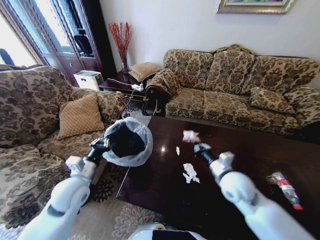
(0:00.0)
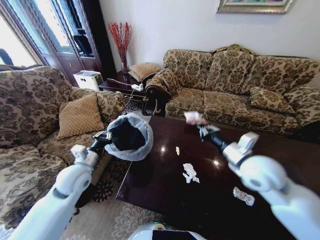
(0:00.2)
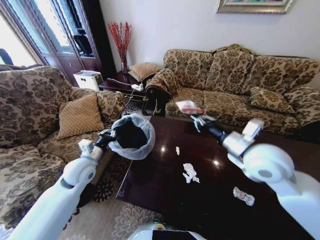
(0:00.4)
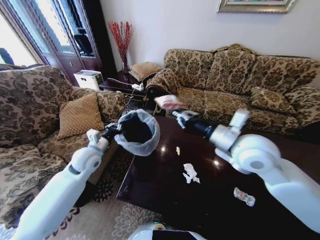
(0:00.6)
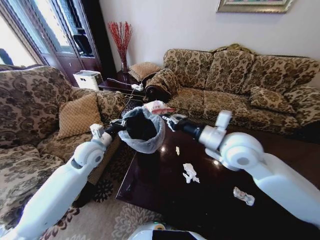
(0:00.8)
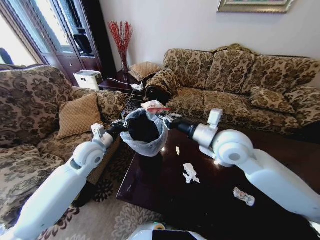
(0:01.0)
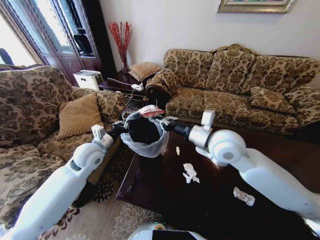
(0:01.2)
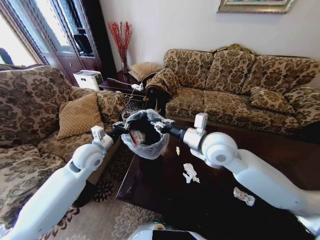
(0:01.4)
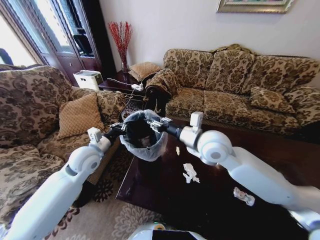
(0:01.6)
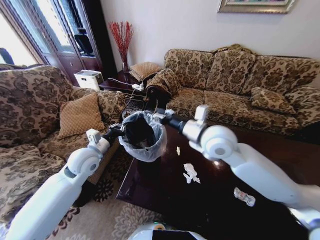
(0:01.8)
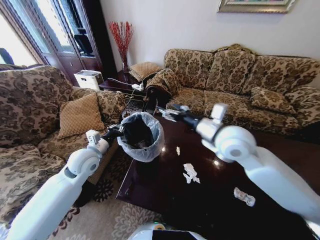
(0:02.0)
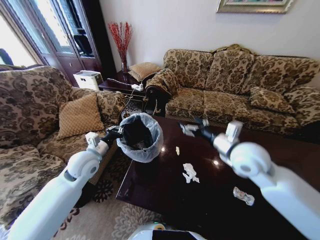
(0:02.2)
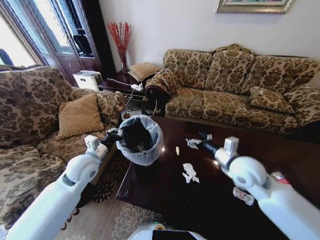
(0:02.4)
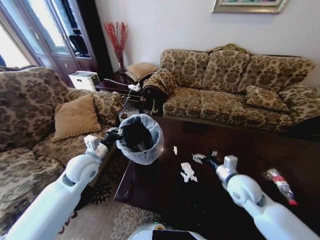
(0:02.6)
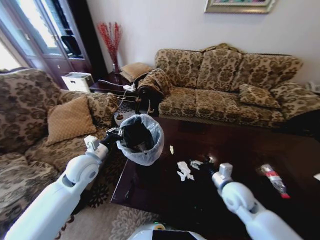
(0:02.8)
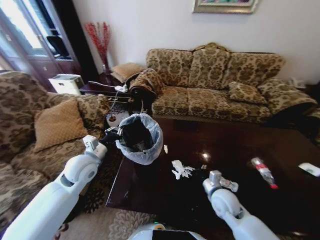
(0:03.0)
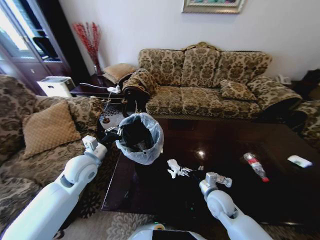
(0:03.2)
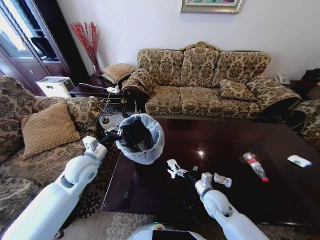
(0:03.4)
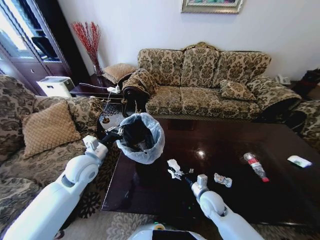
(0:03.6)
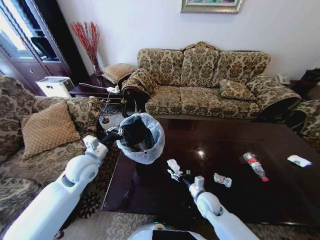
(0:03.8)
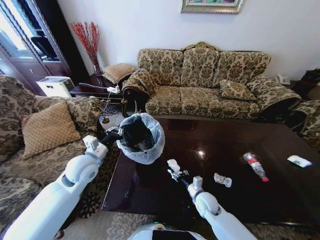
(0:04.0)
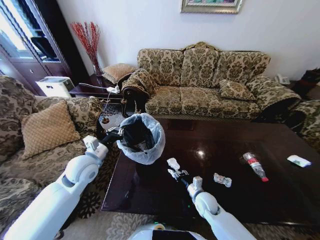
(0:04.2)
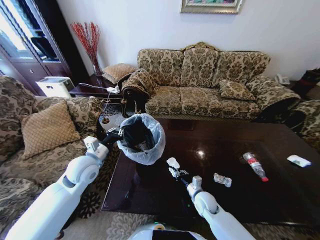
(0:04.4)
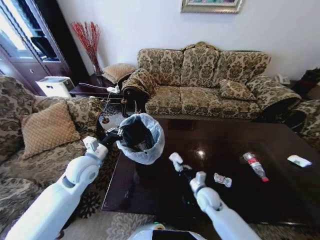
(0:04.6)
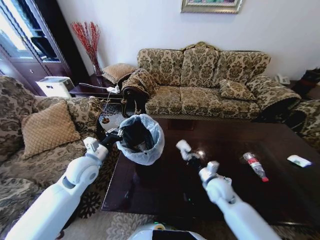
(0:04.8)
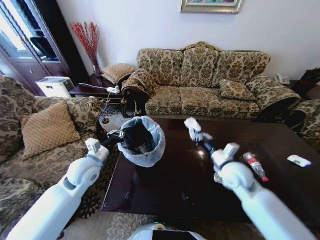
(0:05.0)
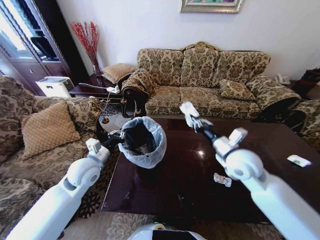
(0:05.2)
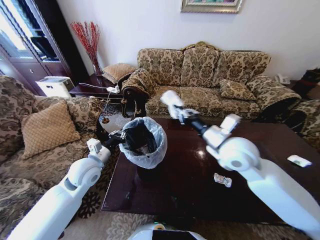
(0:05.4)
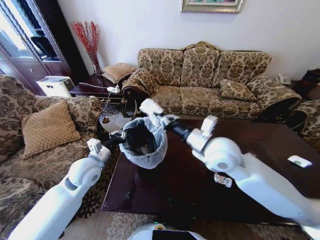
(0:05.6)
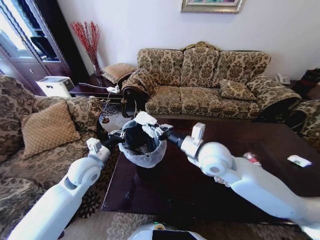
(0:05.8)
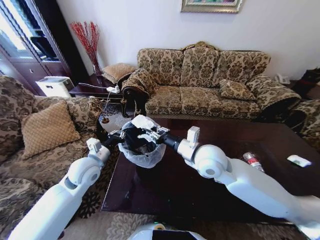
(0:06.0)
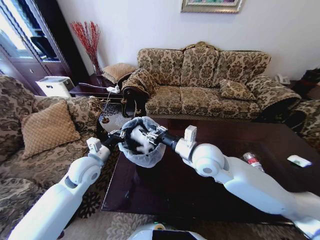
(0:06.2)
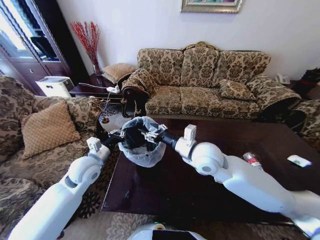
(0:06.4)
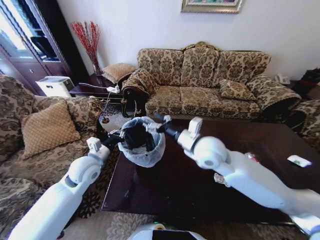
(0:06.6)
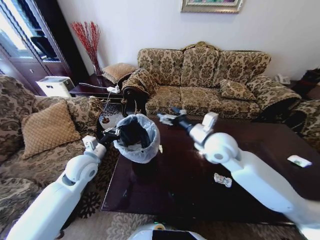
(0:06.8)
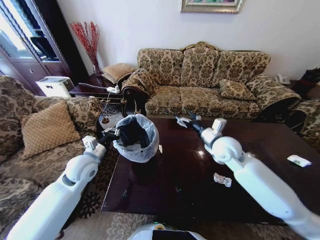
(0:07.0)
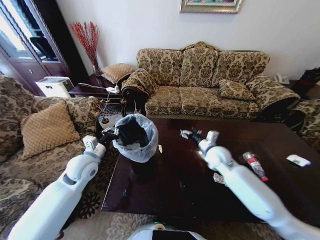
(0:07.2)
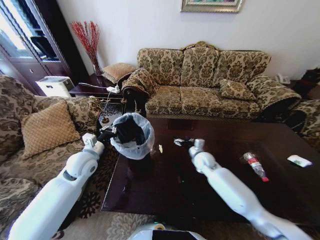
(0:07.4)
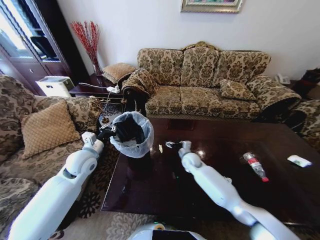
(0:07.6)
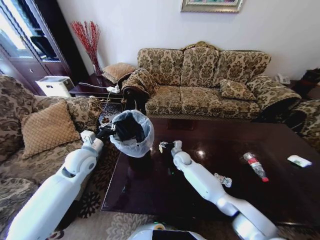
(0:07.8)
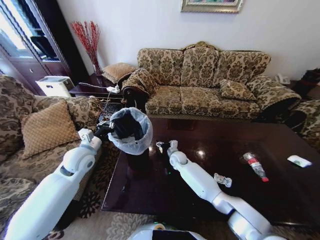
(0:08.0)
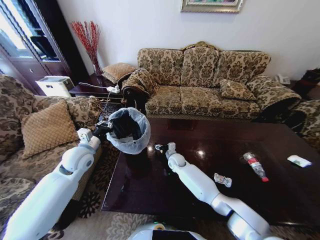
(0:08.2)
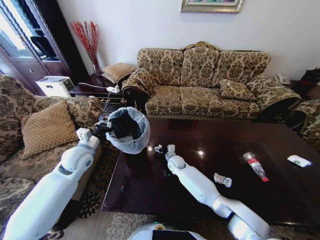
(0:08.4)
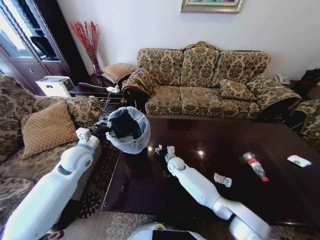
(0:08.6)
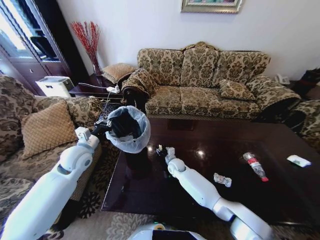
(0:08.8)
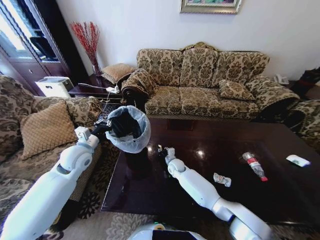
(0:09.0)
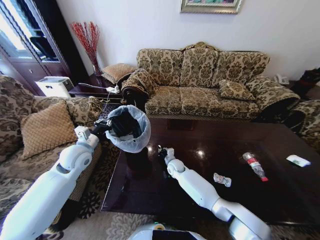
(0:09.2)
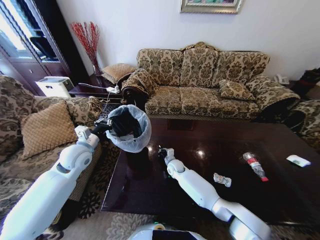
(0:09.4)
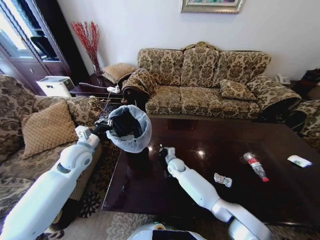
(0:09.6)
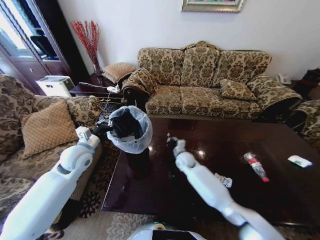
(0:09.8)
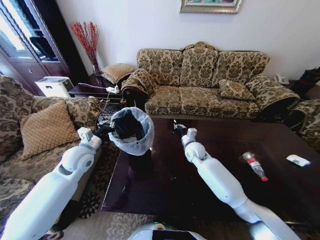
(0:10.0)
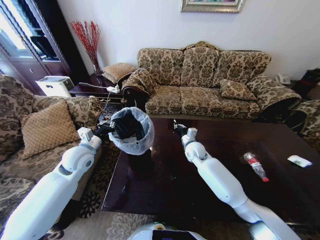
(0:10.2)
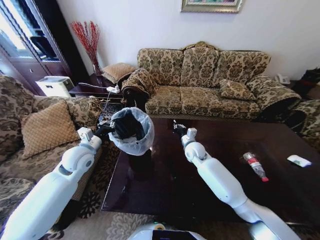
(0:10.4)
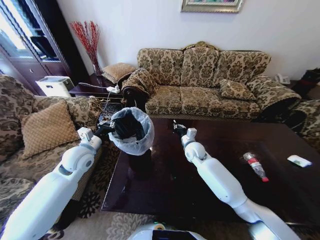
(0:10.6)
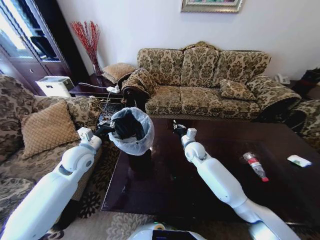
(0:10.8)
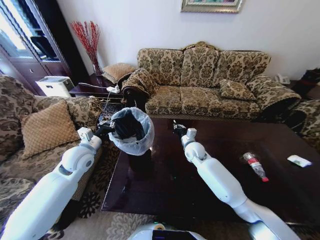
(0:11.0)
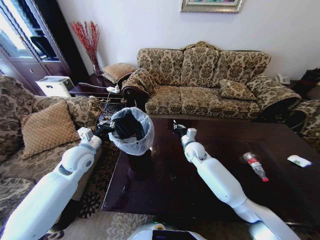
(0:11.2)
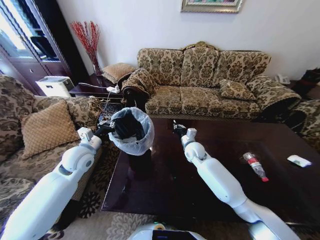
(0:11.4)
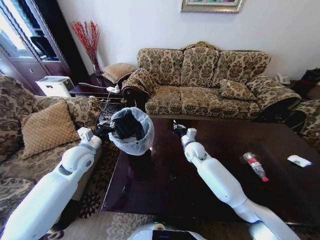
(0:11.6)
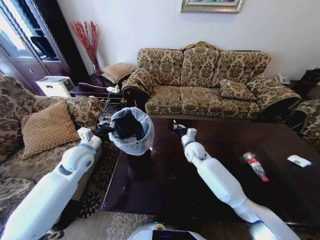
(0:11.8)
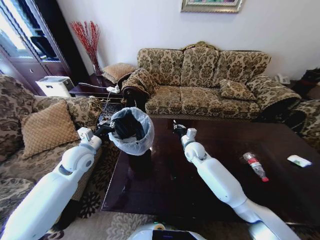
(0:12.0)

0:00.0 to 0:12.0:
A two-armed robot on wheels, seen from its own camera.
Task of the whole recording: Move to the front of the table and place the trash on the table into the trash bin.
0:00.0 to 0:01.6: The left gripper travels forward by about 10 cm; the right gripper is displaced upward, to the left and forward by some 20 cm, and opens.
0:01.6 to 0:03.0: The right gripper travels downward and to the right by approximately 25 cm, and opens its fingers.
0:03.0 to 0:04.4: The right gripper travels downward by approximately 10 cm, and closes up.
0:04.4 to 0:06.0: The right gripper moves upward, roughly 30 cm.
0:06.0 to 0:07.6: The right gripper moves downward and forward, some 25 cm, and opens.
0:07.6 to 0:09.0: The right gripper is displaced to the left and downward by about 10 cm, and closes.
0:09.0 to 0:10.4: The right gripper travels upward and to the right by some 15 cm.
0:10.4 to 0:12.0: Neither gripper changes place.

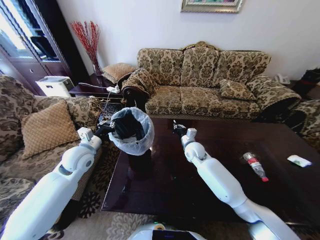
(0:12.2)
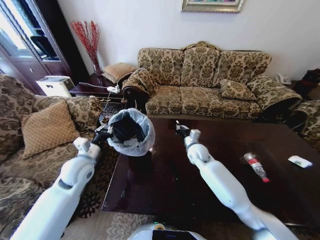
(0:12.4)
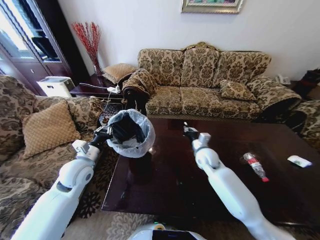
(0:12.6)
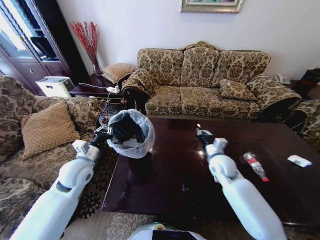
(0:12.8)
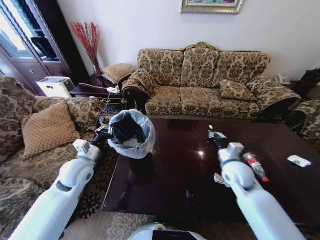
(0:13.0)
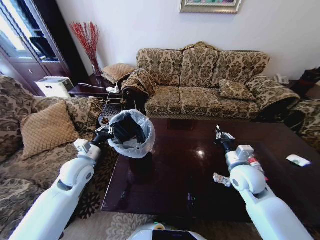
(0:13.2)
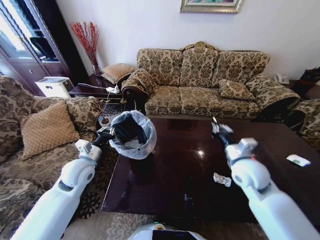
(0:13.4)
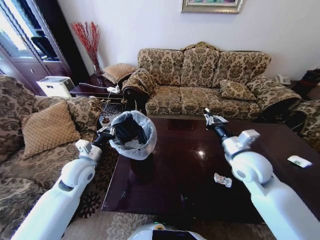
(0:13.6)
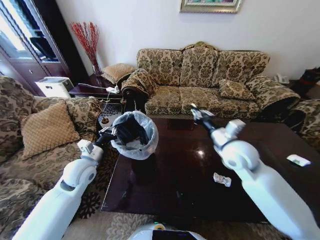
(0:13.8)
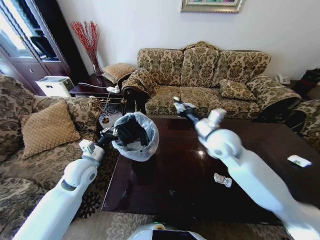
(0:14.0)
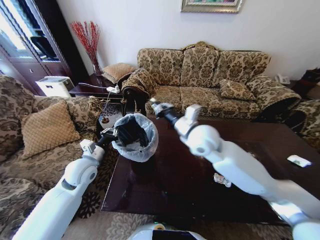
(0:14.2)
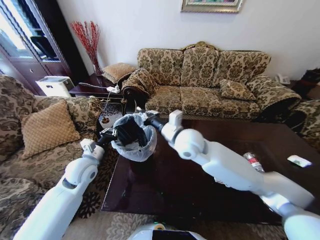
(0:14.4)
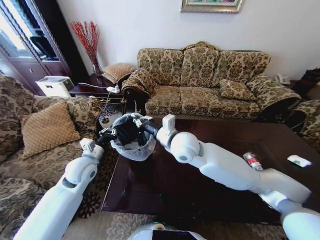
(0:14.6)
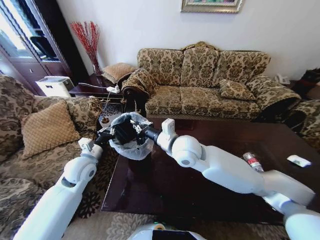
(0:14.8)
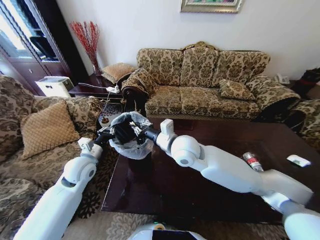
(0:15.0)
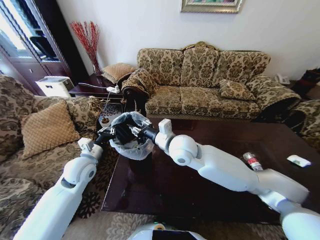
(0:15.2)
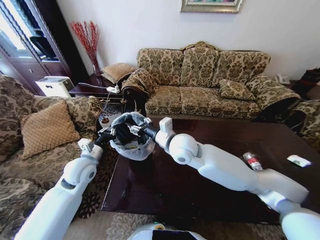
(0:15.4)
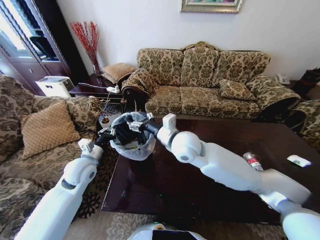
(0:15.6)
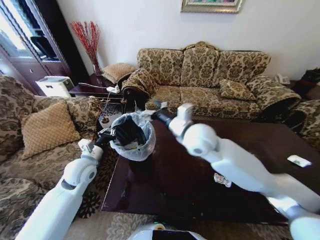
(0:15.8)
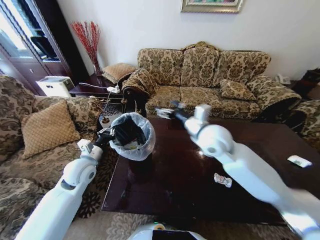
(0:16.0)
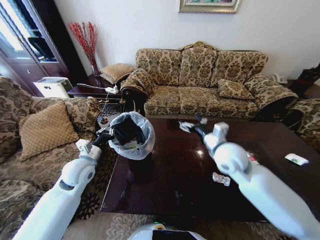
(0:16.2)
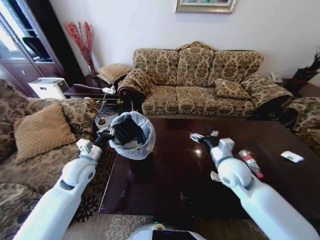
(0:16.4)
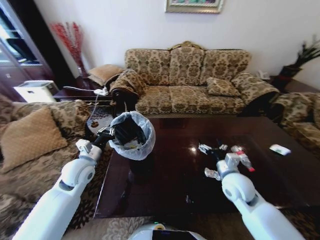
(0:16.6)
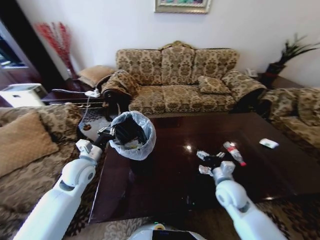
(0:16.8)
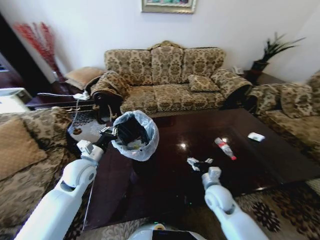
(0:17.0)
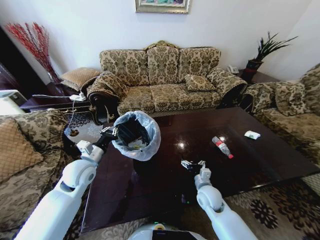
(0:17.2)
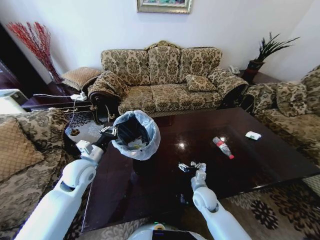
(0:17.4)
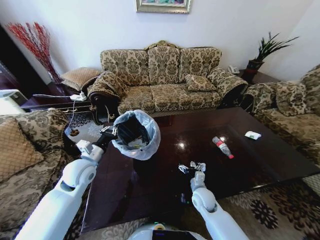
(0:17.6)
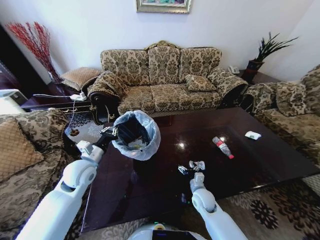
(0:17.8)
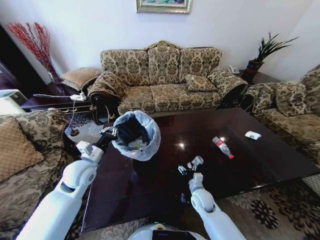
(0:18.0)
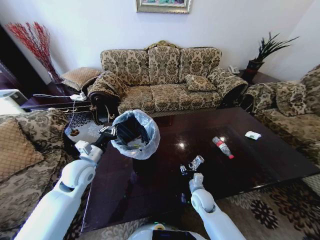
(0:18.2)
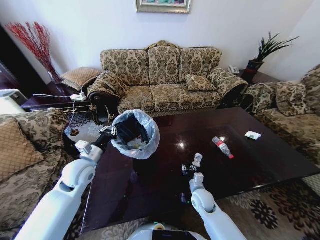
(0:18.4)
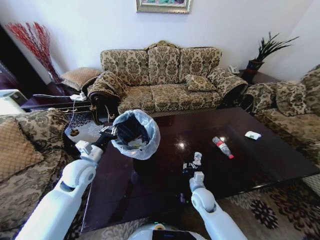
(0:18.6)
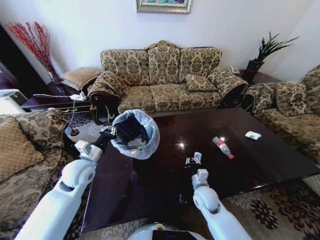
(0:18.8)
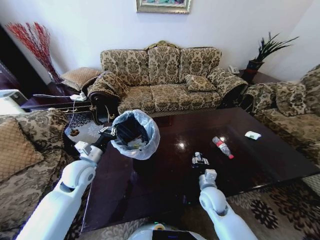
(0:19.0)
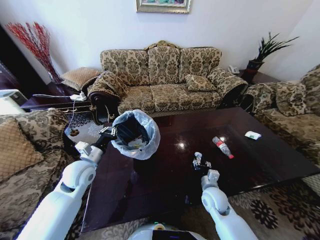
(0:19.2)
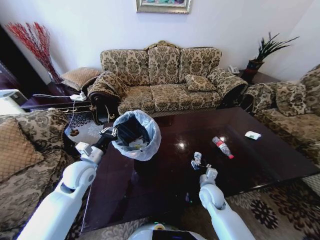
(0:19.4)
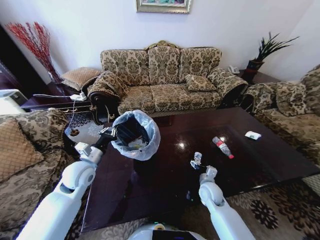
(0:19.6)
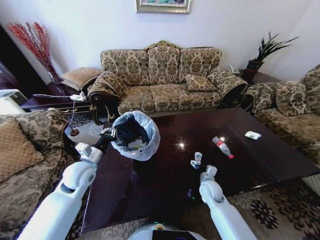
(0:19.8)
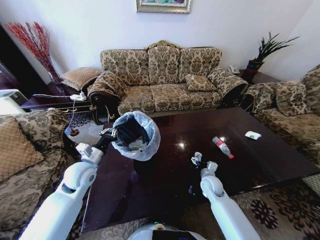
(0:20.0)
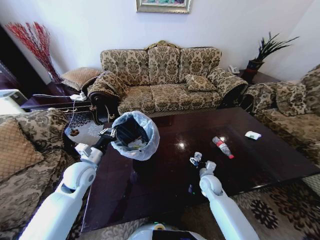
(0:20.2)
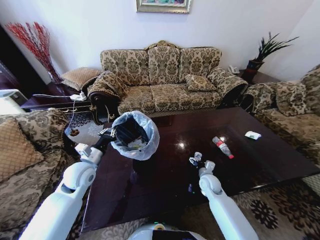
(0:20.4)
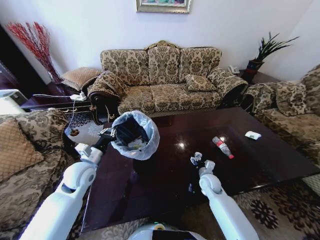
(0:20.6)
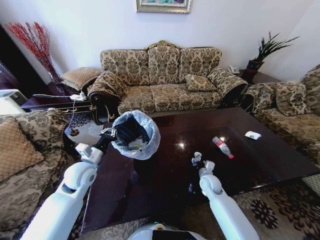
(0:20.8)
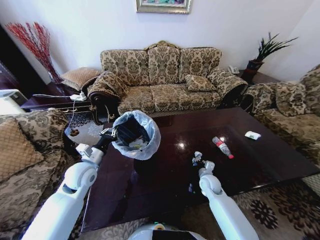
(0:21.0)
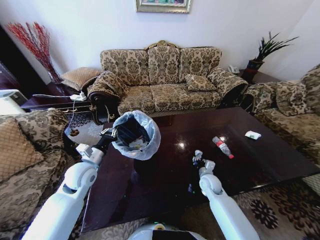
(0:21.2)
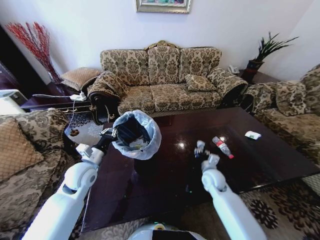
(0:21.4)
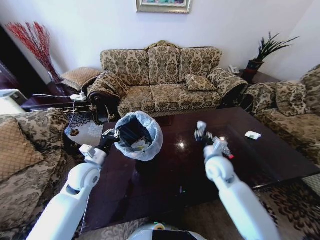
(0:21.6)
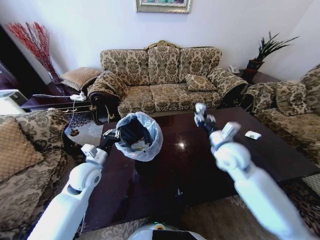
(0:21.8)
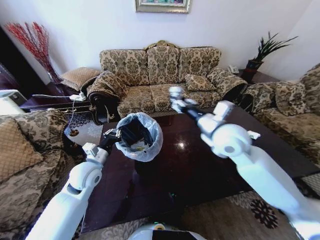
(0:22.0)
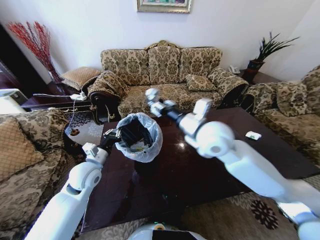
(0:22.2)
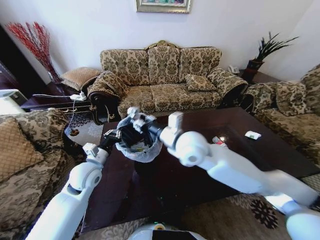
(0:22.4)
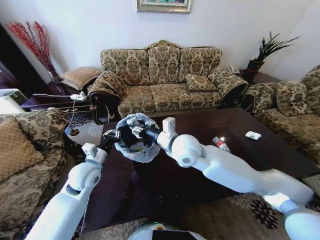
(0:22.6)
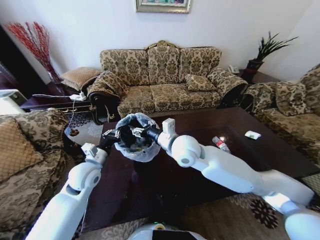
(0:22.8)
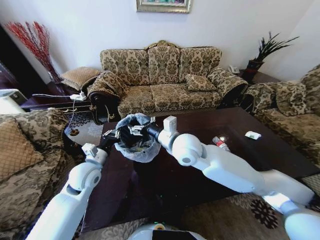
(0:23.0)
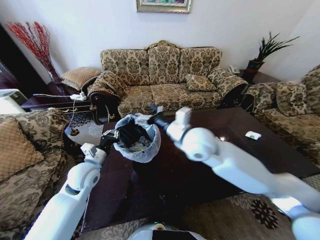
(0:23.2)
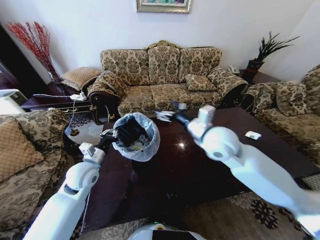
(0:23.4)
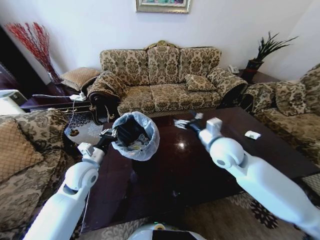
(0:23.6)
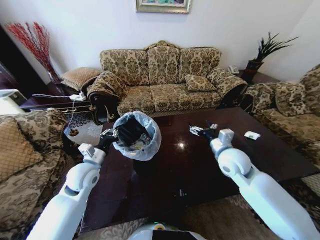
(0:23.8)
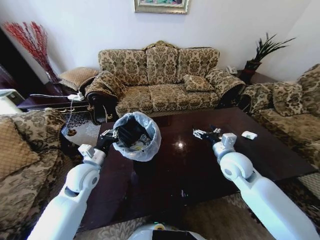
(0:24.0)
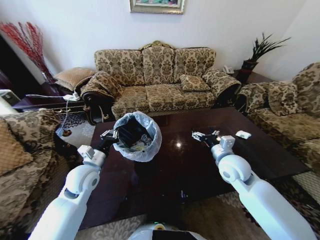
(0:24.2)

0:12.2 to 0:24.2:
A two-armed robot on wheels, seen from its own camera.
Task of the whole recording: Move to the front of the table and place the trash on the table into the trash bin.
0:12.2 to 0:13.8: The right gripper shifts about 20 cm upward, backward and to the right.
0:13.8 to 0:15.2: The right gripper travels to the left by some 20 cm, and opens.
0:15.2 to 0:16.6: The right gripper travels to the right and downward by some 25 cm, and opens.
0:16.6 to 0:18.2: The right gripper goes about 20 cm downward, and closes.
0:18.2 to 0:19.8: The right gripper shifts by about 5 cm, and opens its fingers.
0:19.8 to 0:21.2: The right gripper closes.
0:21.2 to 0:22.6: The right gripper heads upward and to the left, covering about 35 cm.
0:22.6 to 0:24.2: The right gripper shifts some 20 cm to the right and downward, and opens up.
